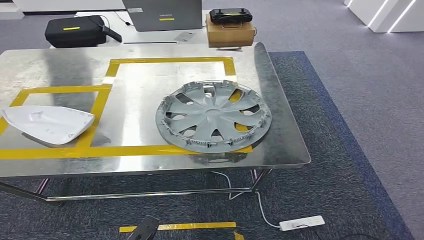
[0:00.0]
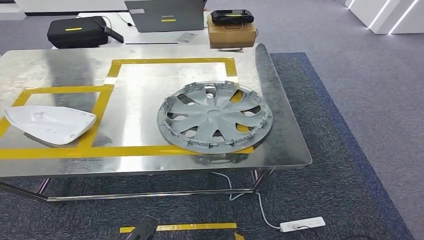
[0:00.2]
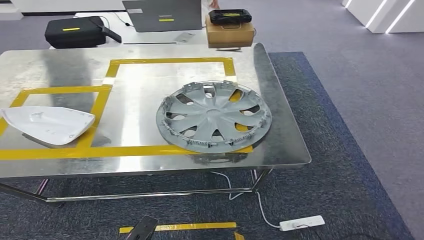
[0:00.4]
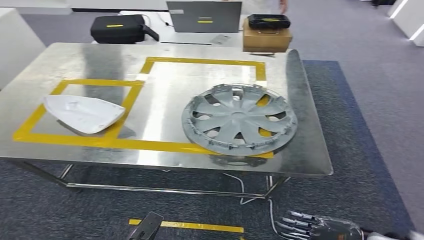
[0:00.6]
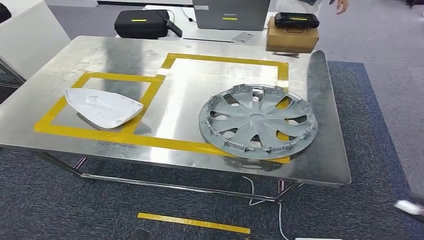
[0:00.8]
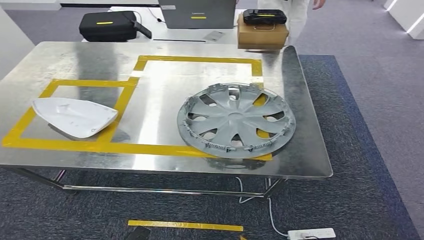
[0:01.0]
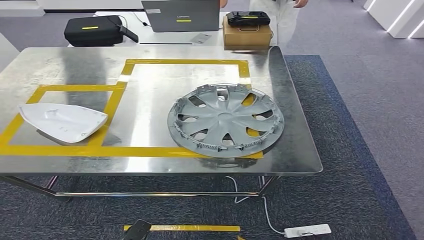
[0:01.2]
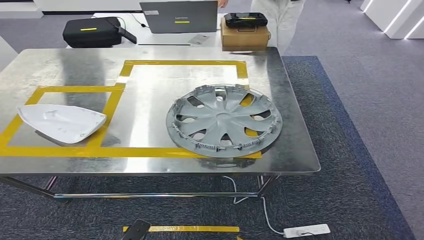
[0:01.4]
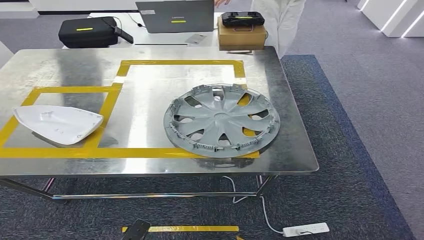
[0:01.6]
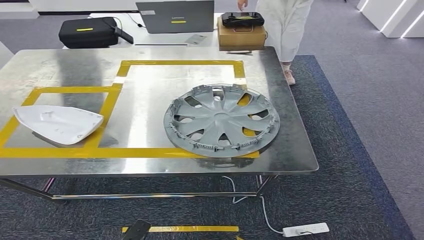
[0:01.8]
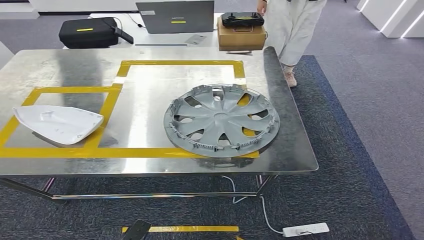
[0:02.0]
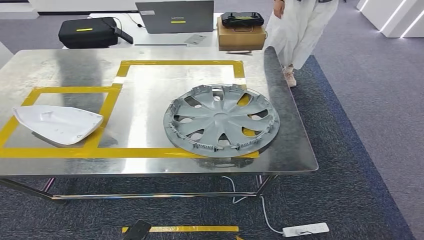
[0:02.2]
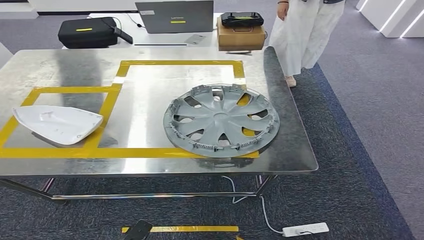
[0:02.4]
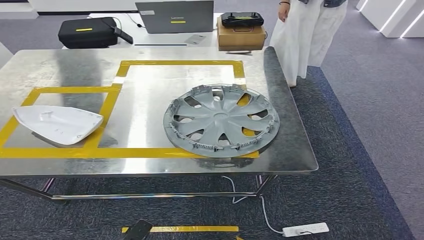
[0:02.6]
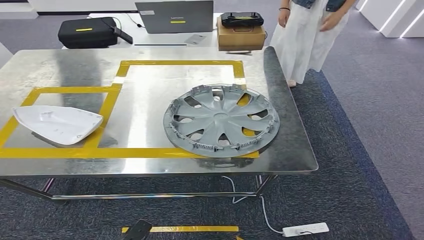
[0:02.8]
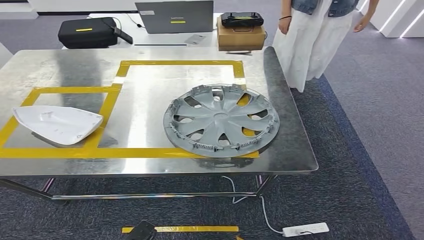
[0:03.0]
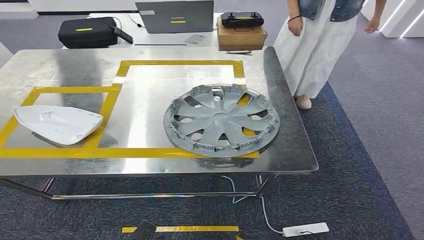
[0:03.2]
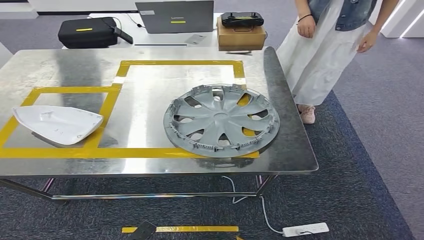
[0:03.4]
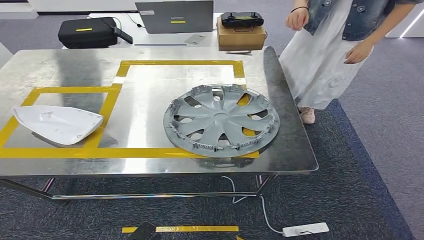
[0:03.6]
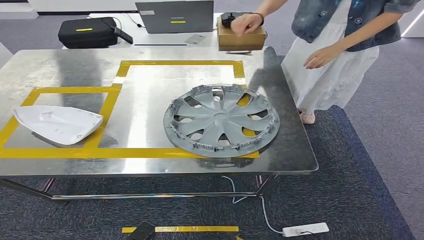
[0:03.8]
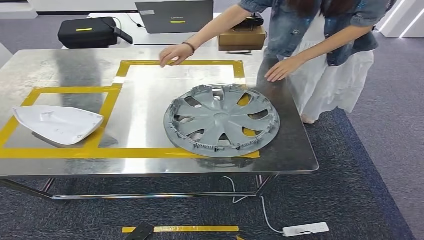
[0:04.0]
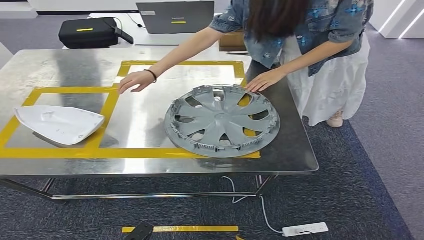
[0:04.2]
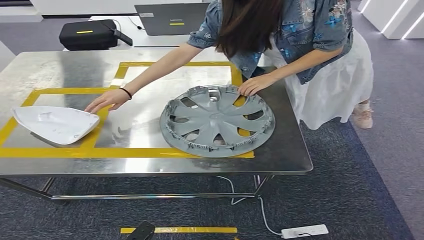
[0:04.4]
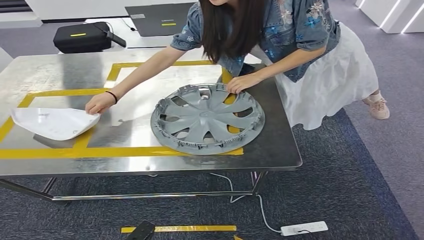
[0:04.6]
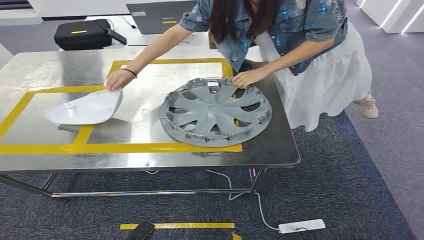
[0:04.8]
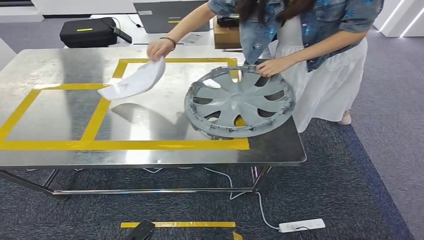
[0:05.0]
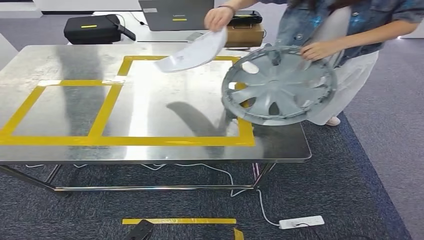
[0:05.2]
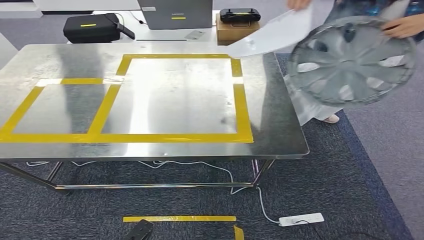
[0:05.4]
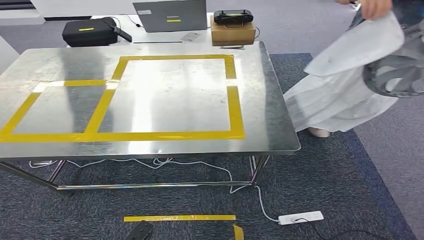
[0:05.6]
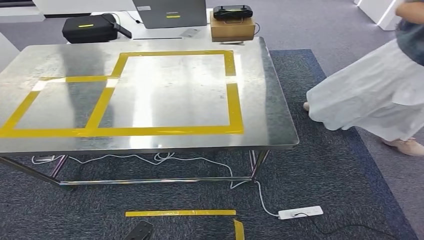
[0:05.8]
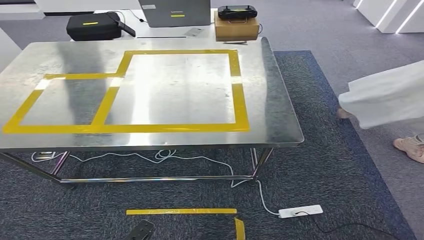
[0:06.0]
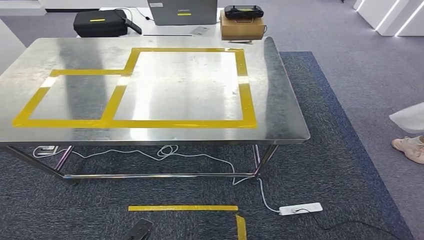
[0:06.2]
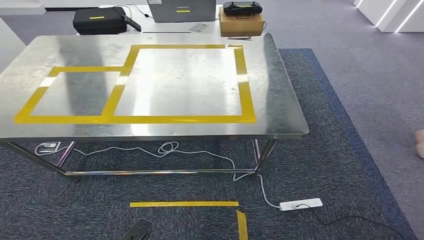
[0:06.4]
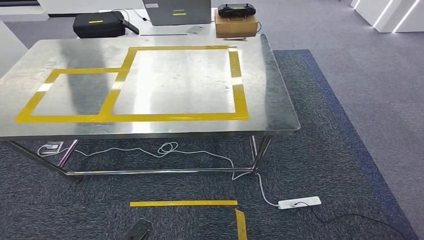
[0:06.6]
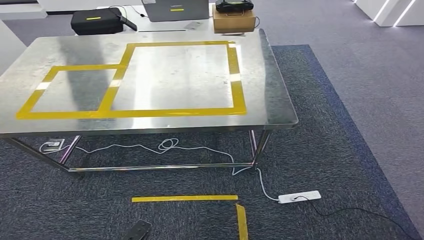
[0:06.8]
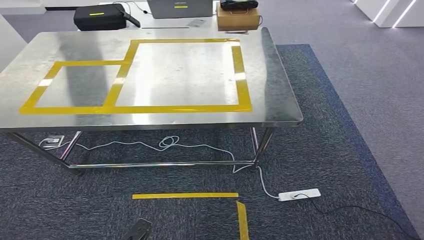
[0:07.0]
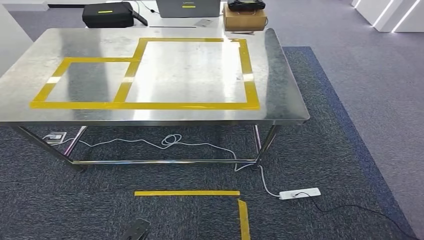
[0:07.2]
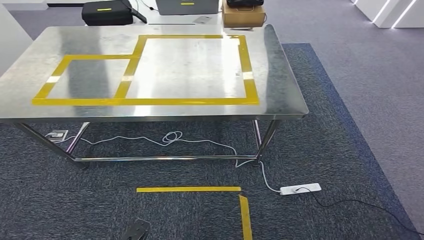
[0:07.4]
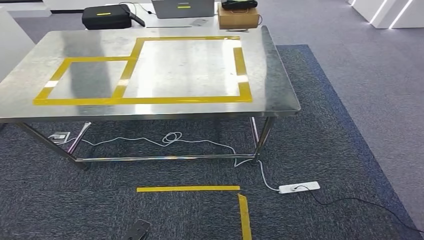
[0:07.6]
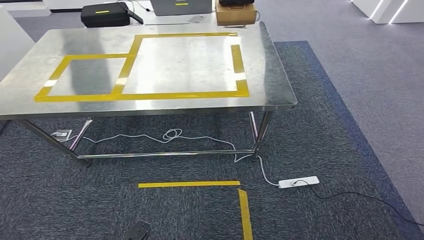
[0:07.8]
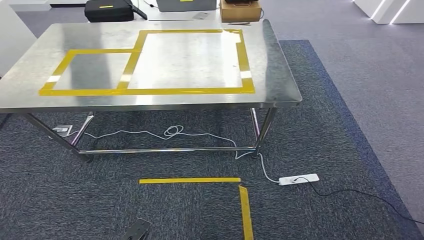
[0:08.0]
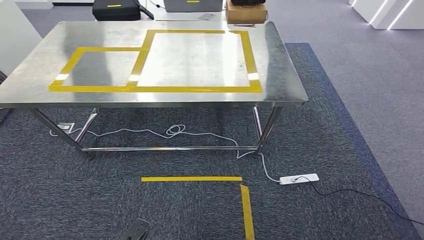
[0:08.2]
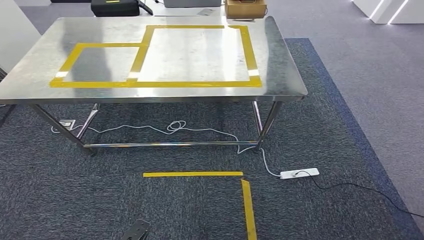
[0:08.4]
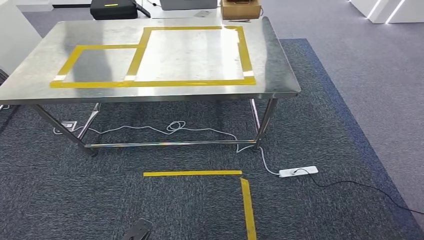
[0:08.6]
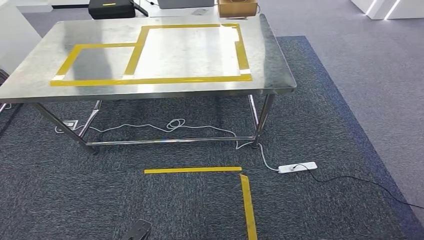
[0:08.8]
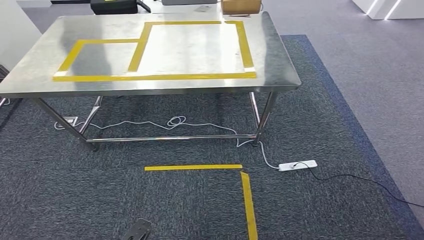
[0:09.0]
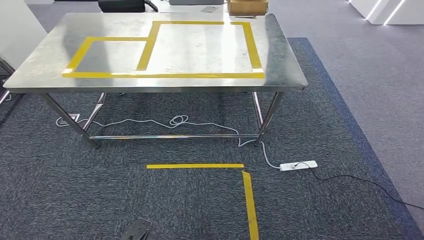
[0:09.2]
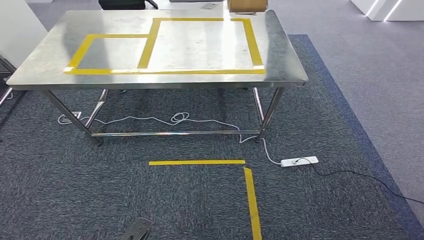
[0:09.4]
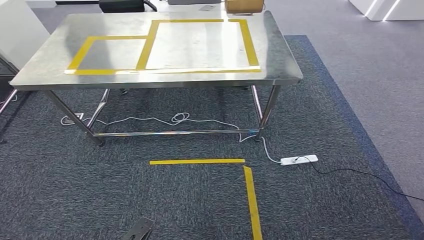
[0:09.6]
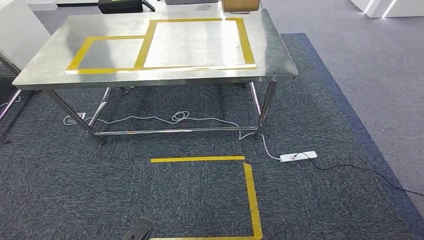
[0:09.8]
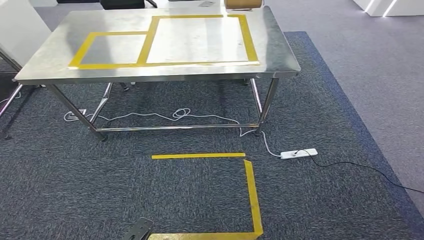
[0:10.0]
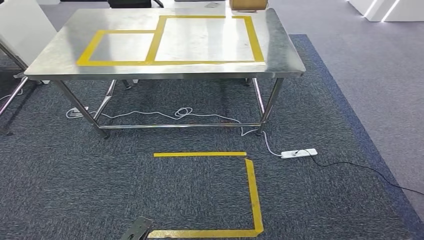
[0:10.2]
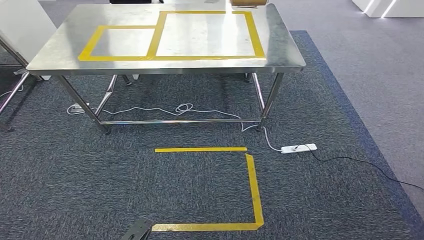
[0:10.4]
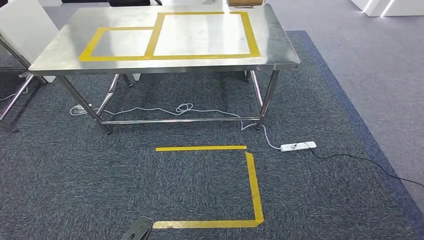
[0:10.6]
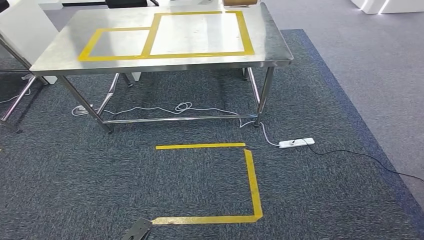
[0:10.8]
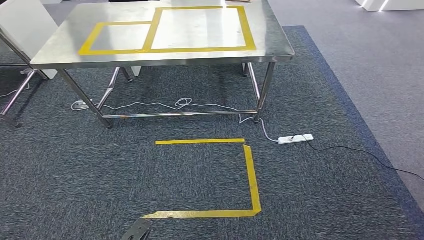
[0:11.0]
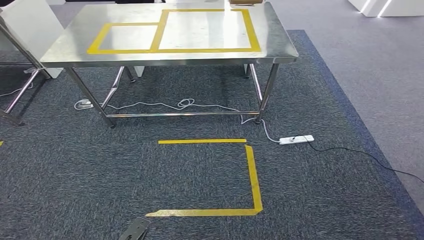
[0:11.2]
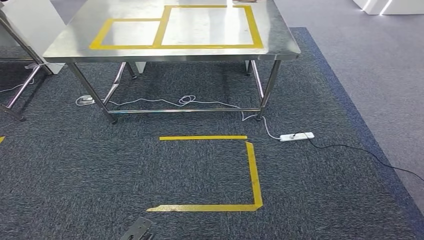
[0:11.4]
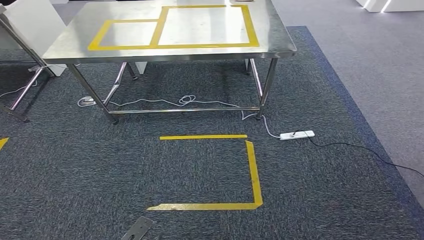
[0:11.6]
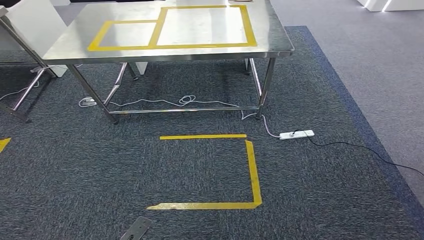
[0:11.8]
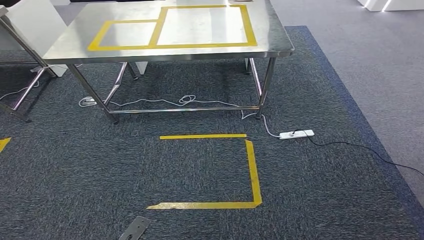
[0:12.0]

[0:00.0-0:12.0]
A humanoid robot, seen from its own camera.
0:01.6 to 0:03.0: The right hand shifts approximately 20 cm to the left.

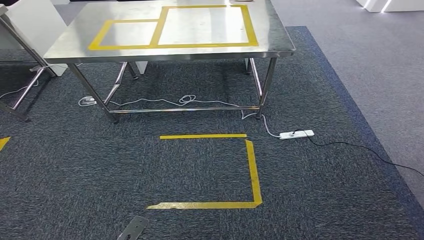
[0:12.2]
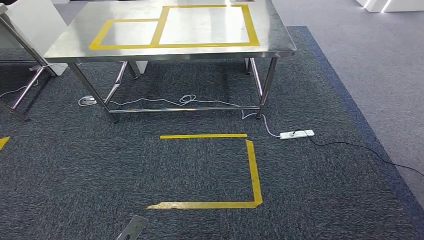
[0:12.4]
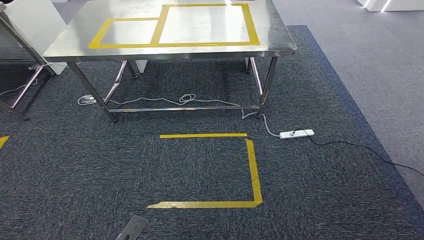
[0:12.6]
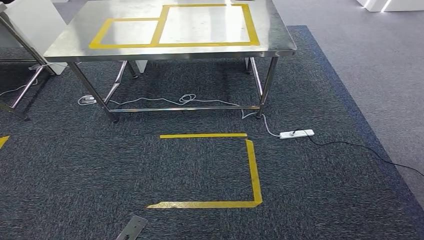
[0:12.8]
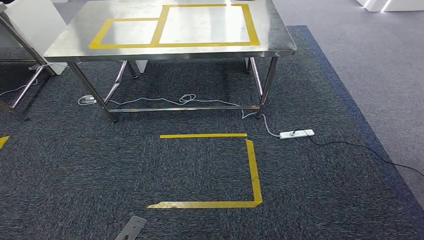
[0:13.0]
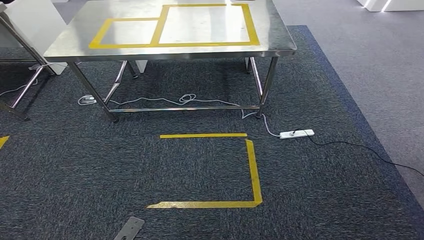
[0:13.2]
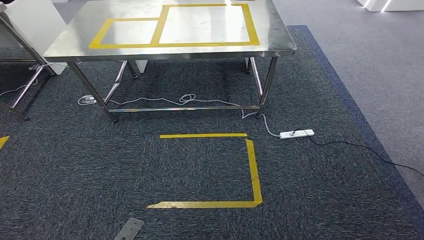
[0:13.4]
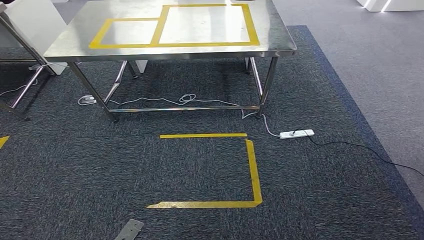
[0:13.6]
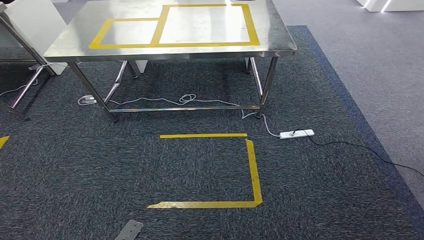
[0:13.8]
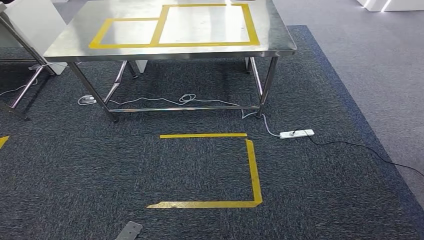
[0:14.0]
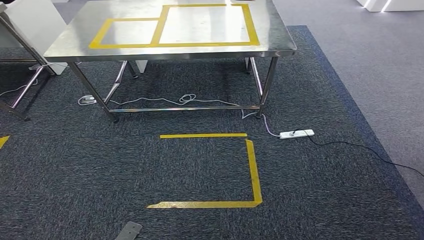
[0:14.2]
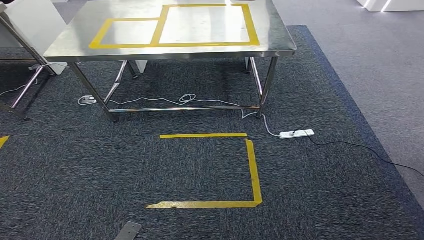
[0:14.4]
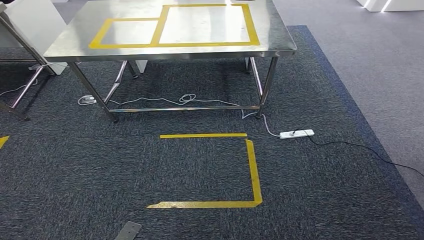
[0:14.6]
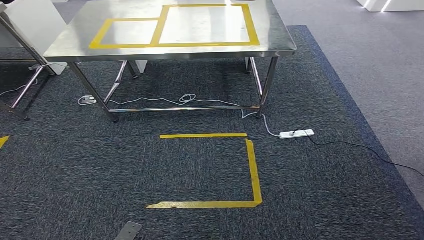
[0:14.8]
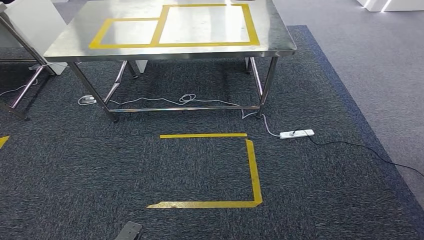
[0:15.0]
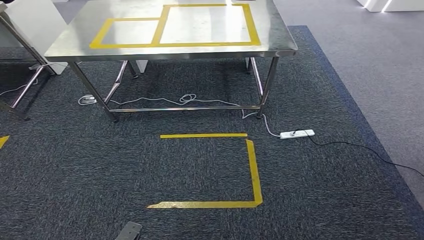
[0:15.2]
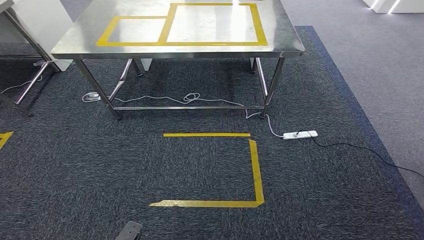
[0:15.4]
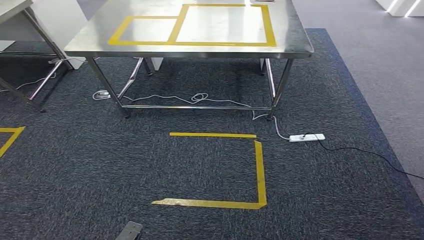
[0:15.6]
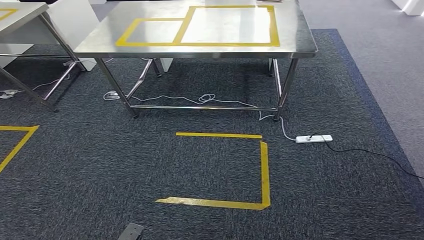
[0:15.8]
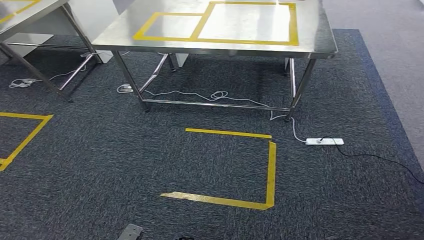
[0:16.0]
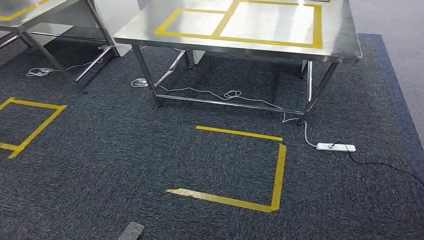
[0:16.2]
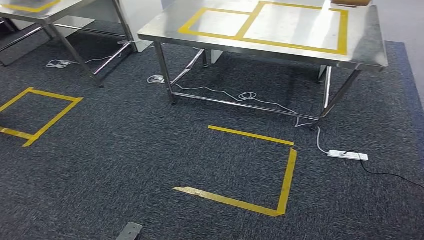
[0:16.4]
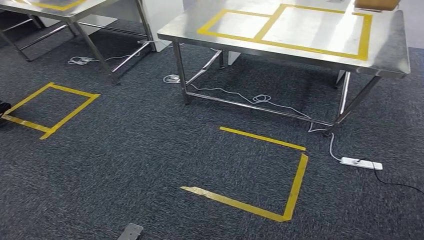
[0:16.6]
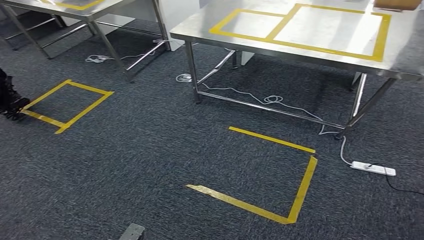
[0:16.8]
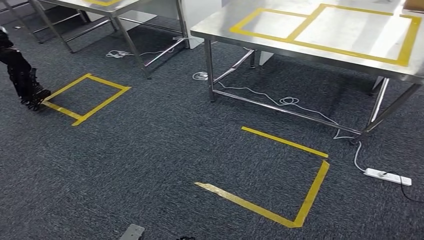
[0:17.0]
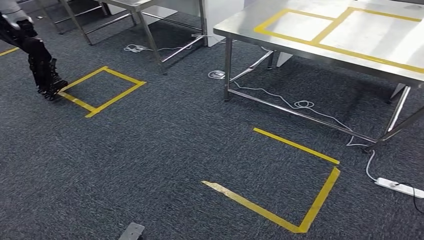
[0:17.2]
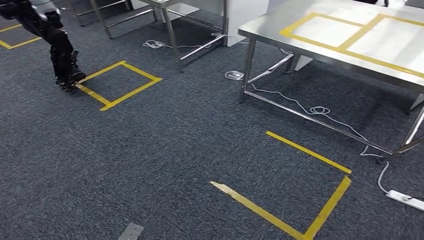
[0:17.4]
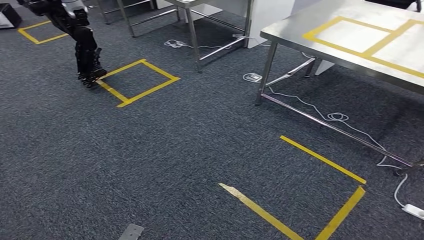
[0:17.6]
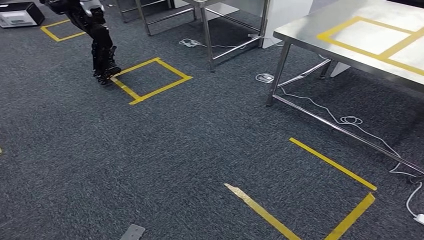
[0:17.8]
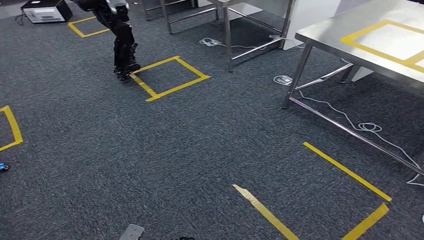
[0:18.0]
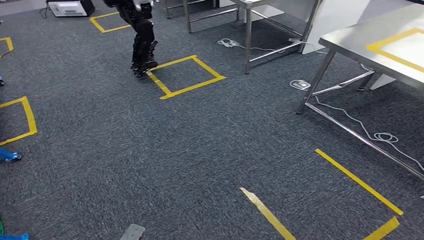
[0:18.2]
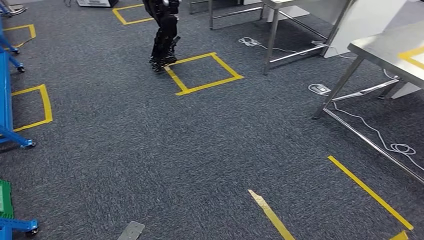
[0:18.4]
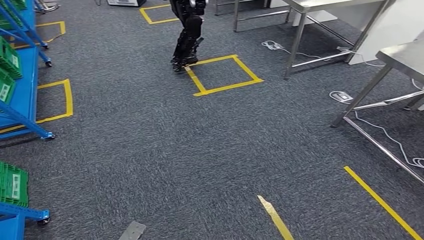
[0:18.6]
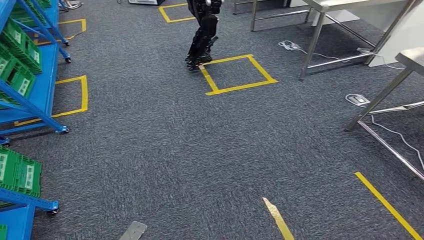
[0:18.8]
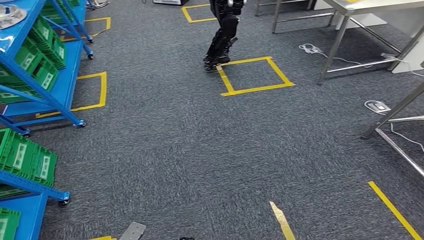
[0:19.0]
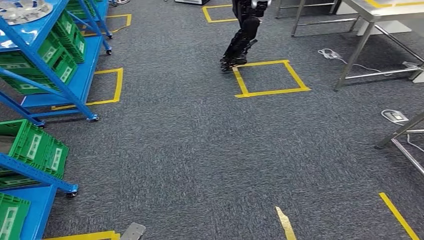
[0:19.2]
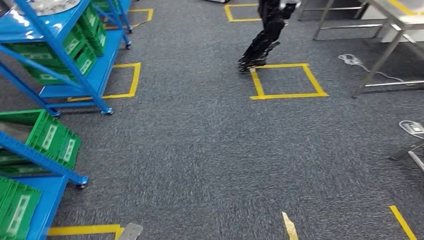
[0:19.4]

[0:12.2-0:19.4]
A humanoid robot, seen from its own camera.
0:12.2 to 0:13.6: There are only small adjustments of the hands.
